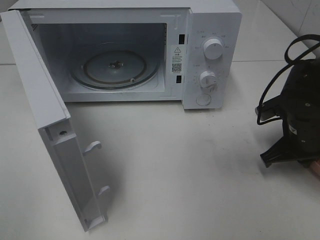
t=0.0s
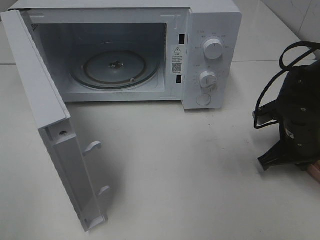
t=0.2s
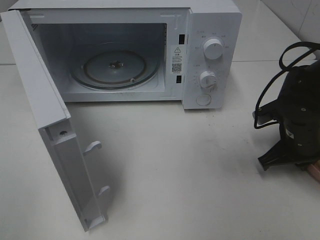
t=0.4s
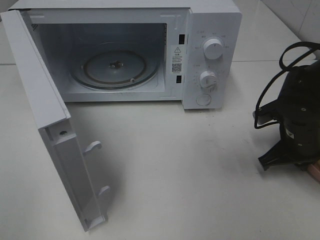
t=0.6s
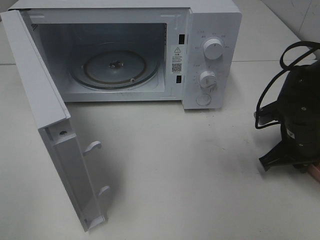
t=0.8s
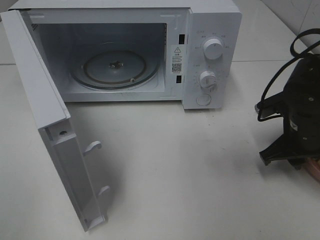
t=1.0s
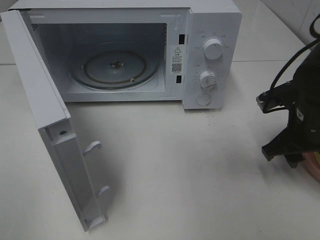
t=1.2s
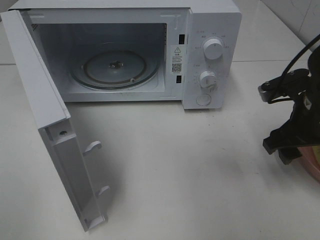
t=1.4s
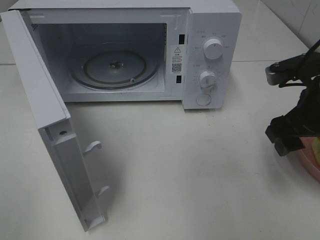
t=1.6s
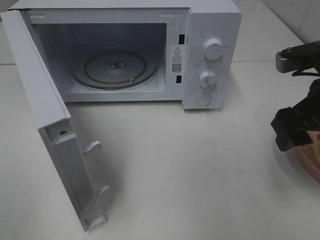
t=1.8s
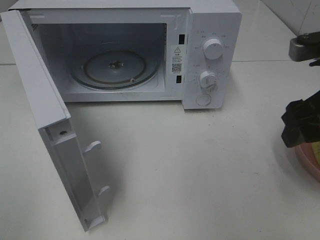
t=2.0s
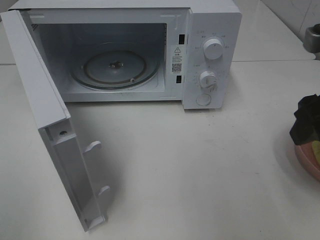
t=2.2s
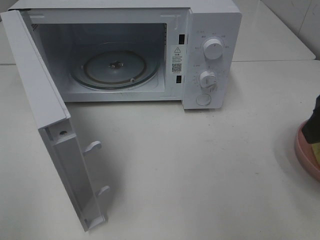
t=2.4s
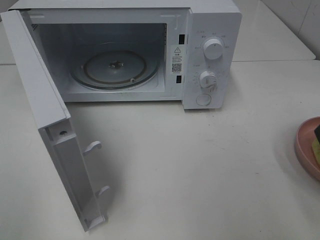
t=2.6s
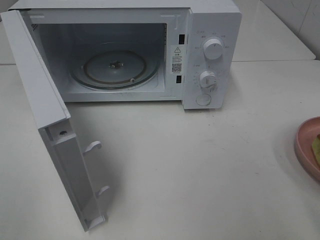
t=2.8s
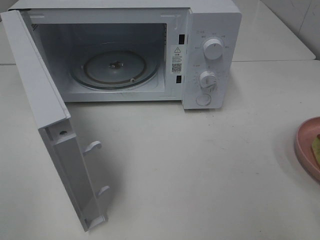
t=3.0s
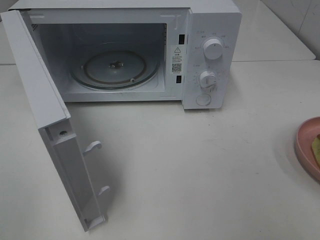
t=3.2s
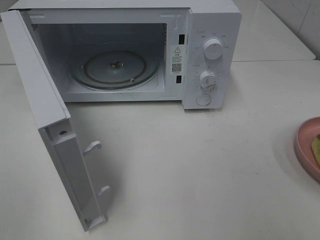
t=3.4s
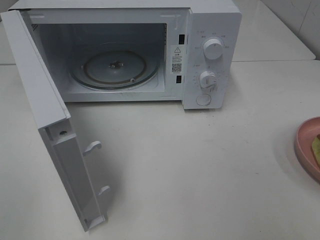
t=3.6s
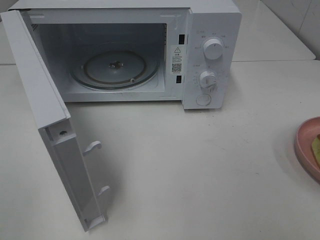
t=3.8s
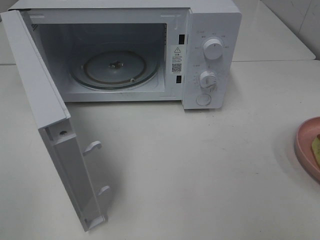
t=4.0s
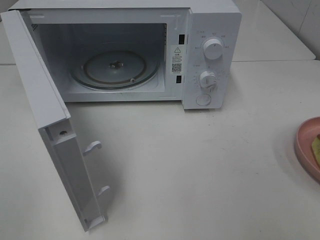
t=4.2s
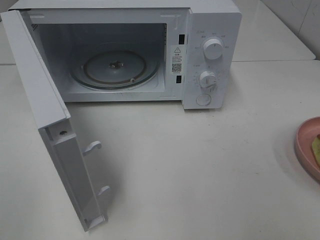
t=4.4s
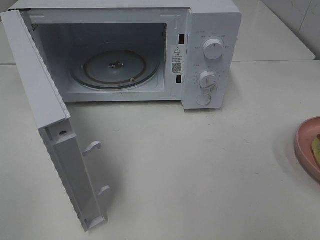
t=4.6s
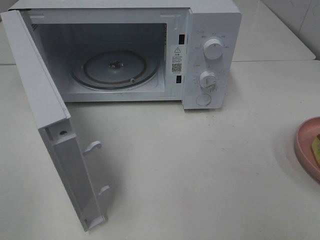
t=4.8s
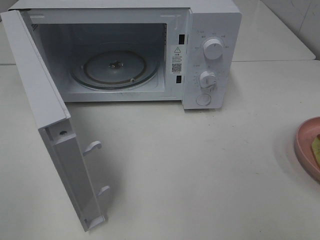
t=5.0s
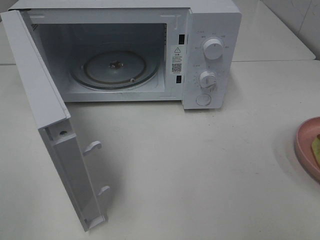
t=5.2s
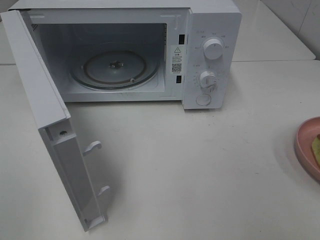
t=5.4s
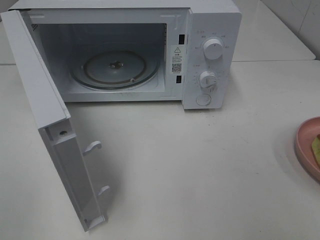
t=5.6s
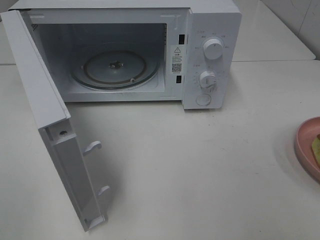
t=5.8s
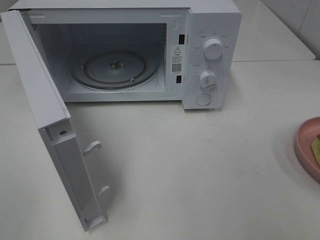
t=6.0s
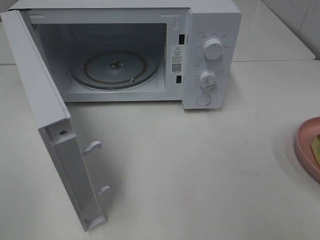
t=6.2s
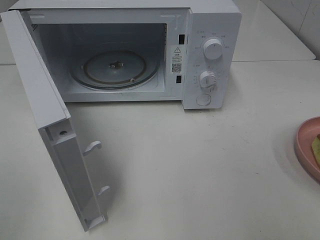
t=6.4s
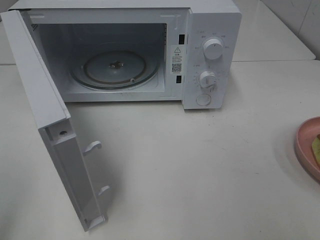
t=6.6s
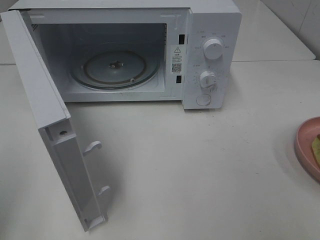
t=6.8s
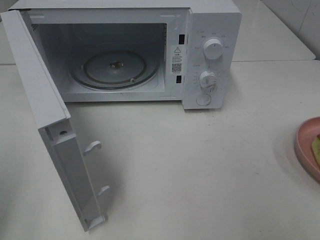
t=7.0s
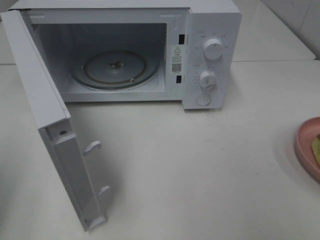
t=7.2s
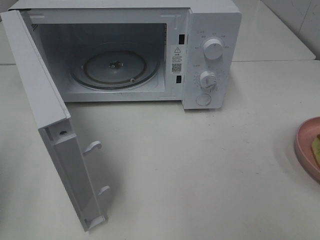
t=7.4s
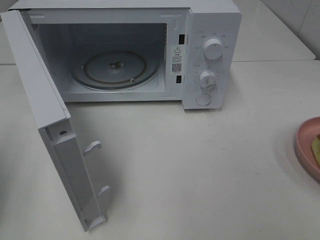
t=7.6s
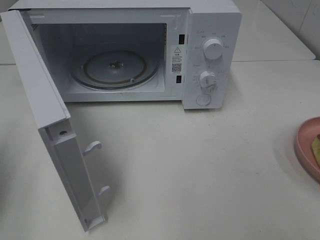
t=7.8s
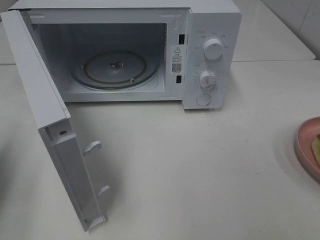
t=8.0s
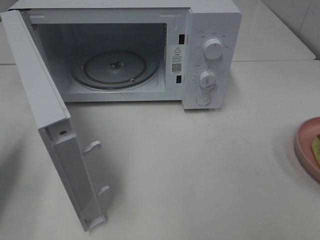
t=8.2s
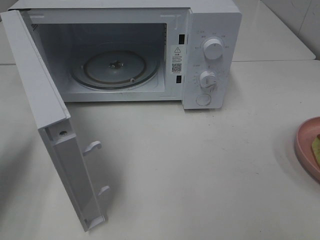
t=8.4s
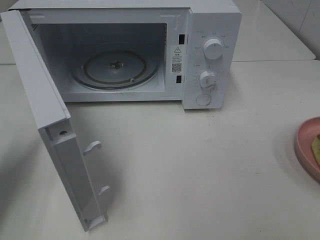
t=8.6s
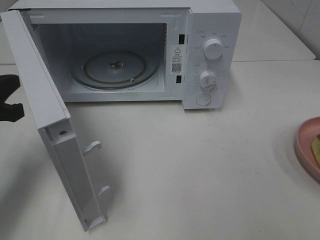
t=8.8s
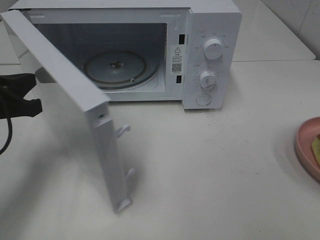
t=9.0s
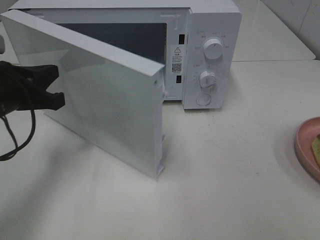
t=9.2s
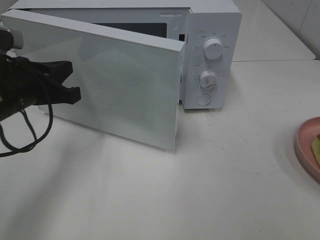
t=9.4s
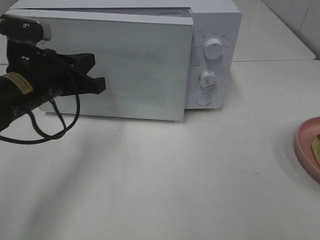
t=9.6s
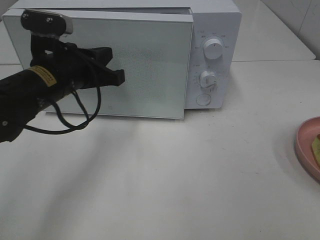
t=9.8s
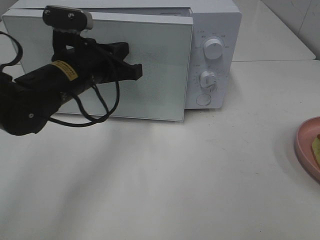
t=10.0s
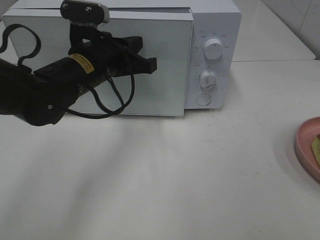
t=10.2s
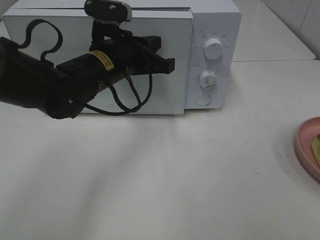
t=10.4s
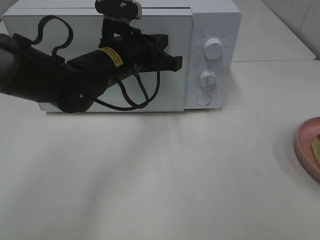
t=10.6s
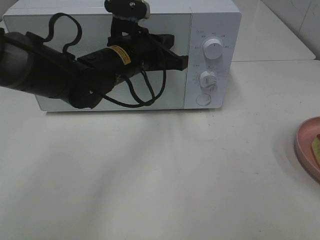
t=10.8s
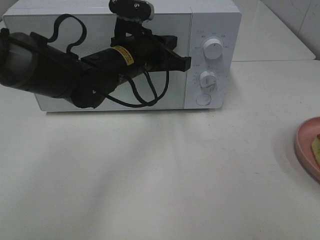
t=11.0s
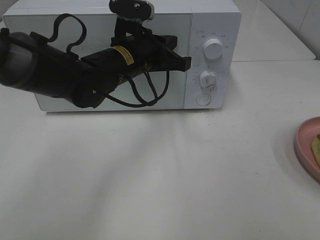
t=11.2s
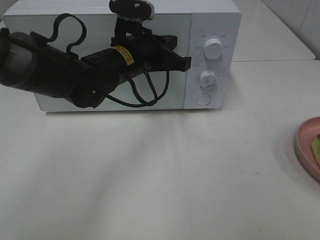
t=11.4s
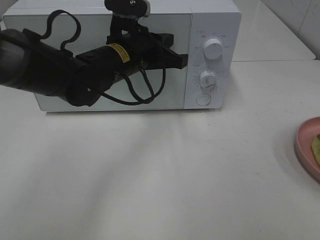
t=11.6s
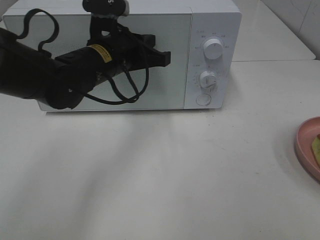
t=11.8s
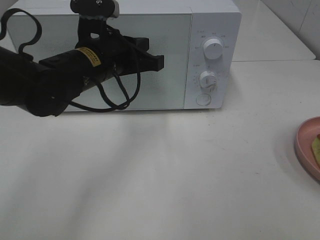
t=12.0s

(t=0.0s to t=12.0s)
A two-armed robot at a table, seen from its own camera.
Task of the whole recording: Heat Sandwich.
Step, t=0.0s - t=2.2s: Right hand: place the plate on the table.
t=0.0s - t=1.6s: The right gripper moves upward, approximately 10 cm, and opens its fingers.
t=1.6s - t=3.0s: The right gripper shifts about 20 cm backward and upward.
t=4.4s - t=6.0s: Both grippers stay about where they are.
t=7.6s - t=9.0s: The left gripper travels forward, to the right and downward by approximately 15 cm.
t=9.0s - t=10.4s: The left gripper travels to the right and forward by roughly 20 cm.
t=10.4s - t=12.0s: The grippers move only a little.

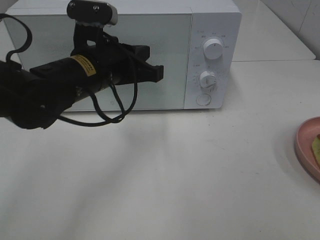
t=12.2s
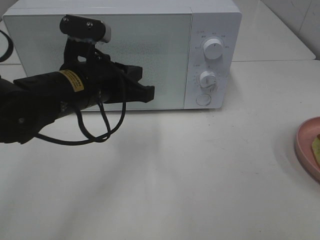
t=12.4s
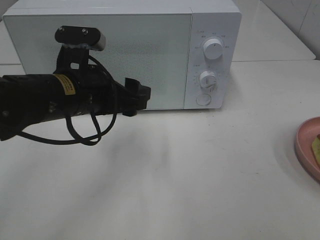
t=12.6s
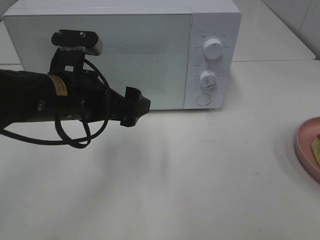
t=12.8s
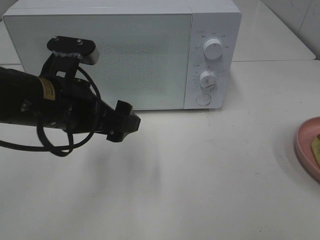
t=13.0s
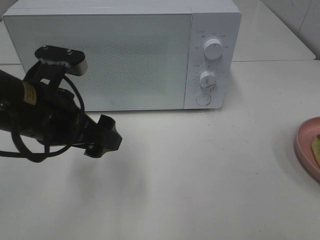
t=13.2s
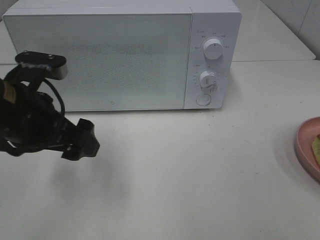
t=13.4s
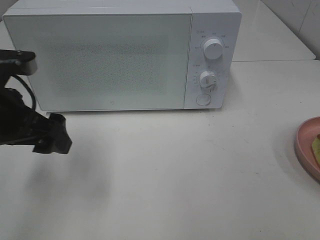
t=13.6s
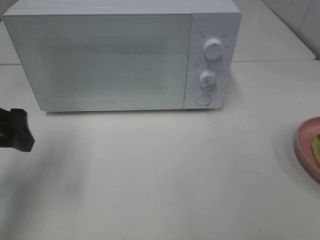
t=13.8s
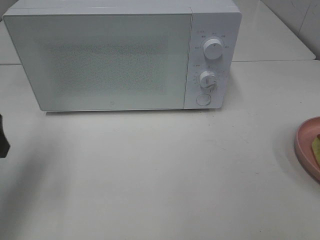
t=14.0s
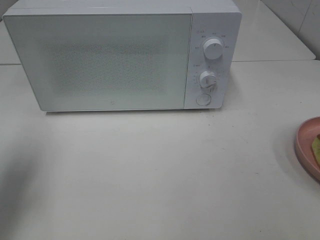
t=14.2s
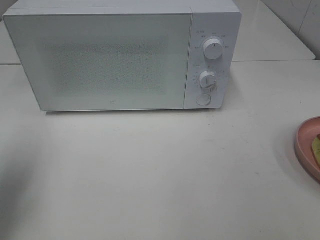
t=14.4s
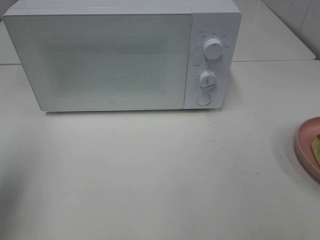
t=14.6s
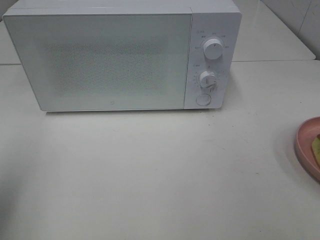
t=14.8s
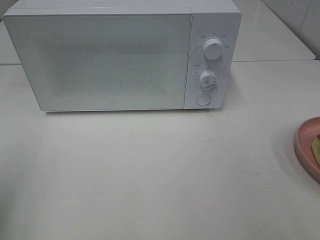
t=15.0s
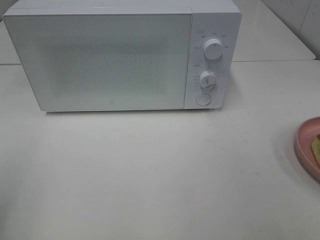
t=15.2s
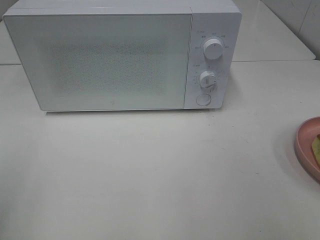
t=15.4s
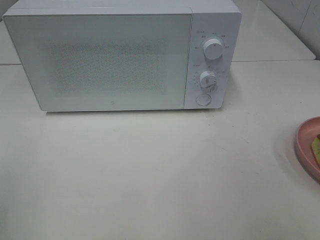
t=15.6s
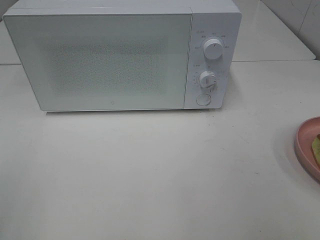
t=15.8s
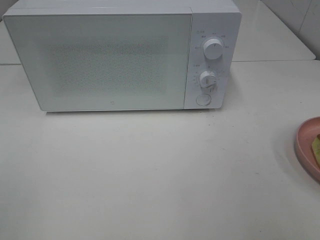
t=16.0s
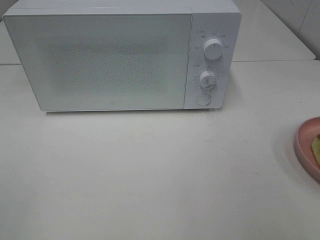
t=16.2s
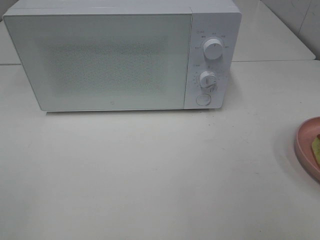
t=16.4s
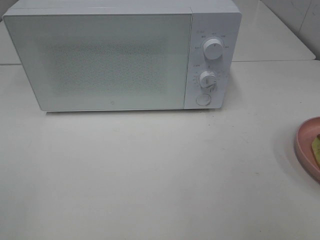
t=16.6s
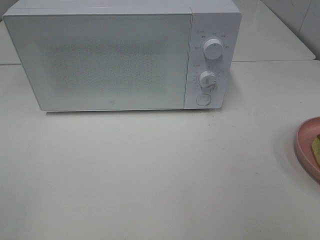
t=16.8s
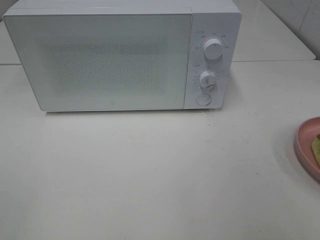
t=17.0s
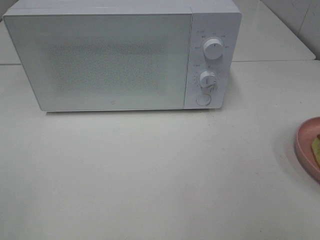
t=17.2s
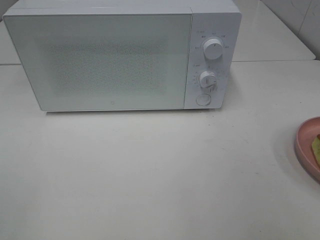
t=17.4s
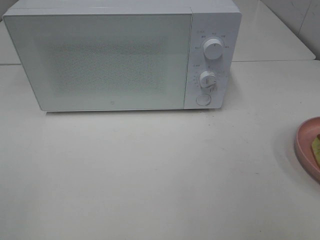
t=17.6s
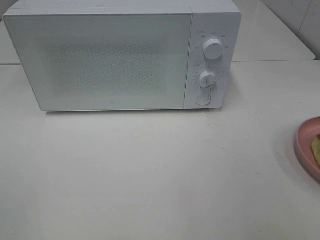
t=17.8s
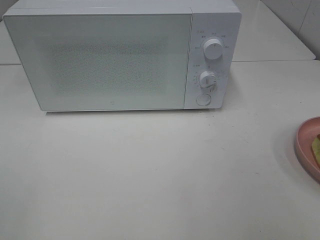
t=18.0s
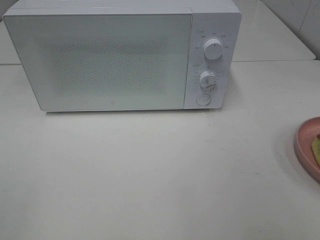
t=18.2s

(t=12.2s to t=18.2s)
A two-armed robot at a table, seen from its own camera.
Task of the whole recording: Heat Sandwich.
t=12.2s - t=13.8s: The left gripper heads to the left and backward, covering roughly 15 cm, and opens.
t=13.8s - t=15.2s: The left gripper is displaced backward and to the left by about 15 cm.
t=16.6s - t=18.2s: Both grippers stay about where they are.

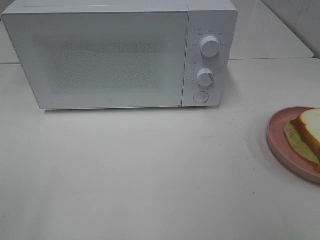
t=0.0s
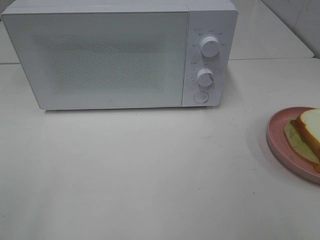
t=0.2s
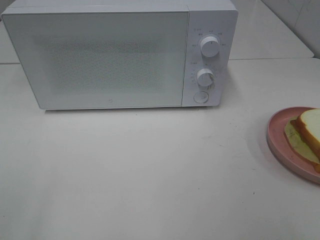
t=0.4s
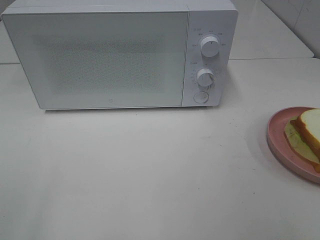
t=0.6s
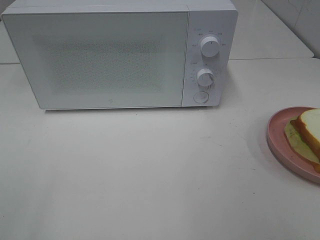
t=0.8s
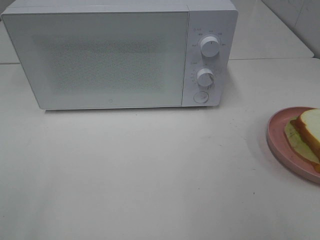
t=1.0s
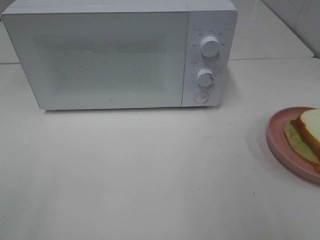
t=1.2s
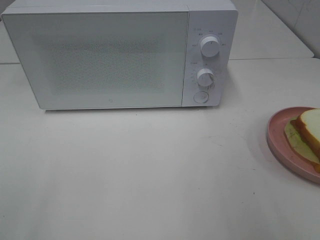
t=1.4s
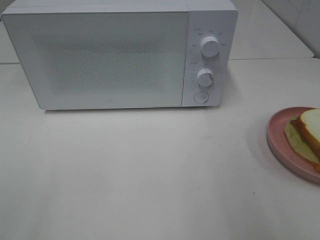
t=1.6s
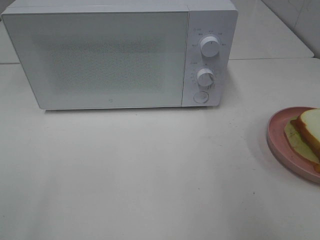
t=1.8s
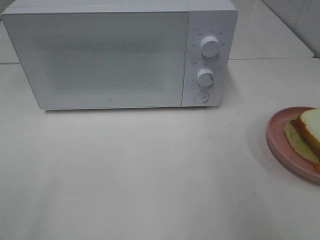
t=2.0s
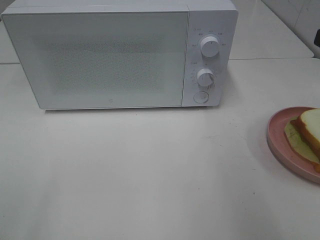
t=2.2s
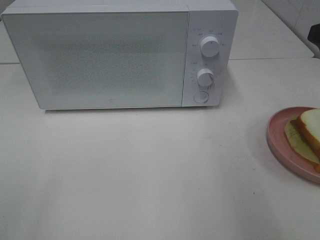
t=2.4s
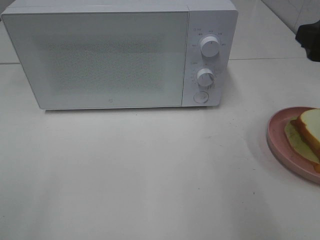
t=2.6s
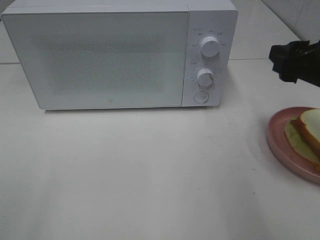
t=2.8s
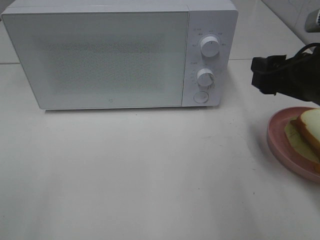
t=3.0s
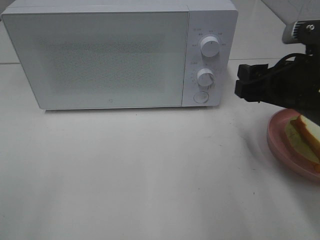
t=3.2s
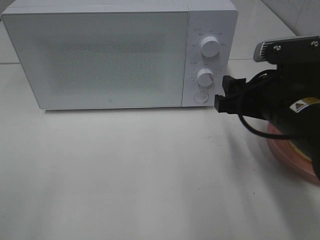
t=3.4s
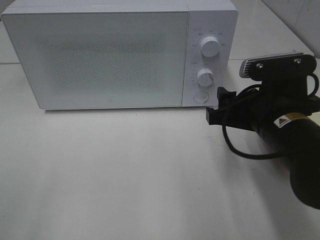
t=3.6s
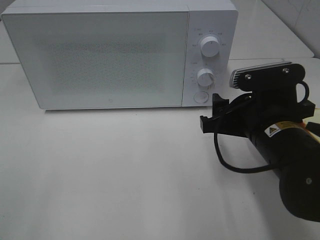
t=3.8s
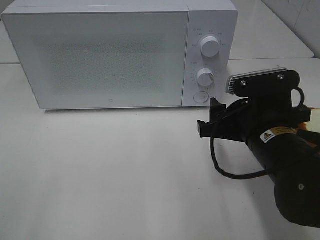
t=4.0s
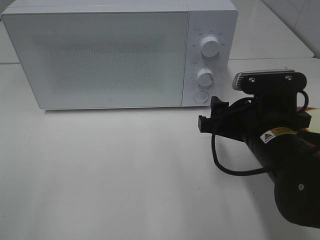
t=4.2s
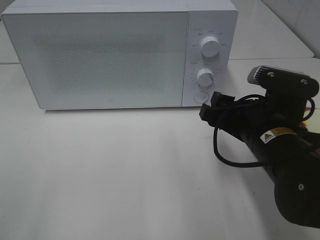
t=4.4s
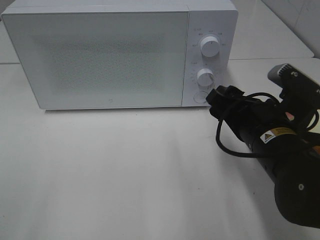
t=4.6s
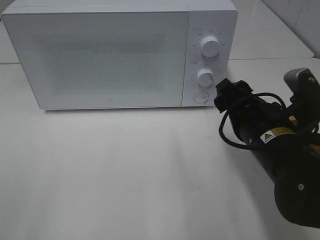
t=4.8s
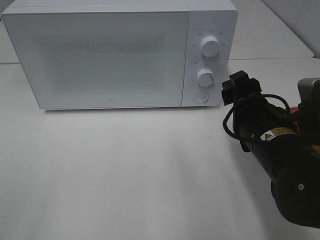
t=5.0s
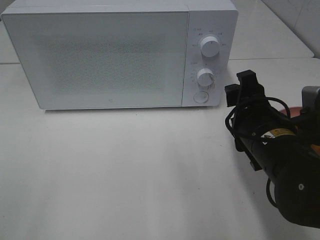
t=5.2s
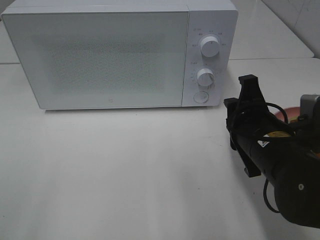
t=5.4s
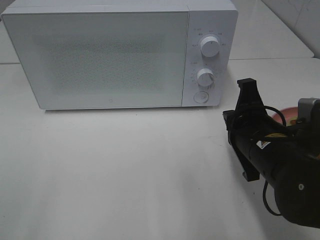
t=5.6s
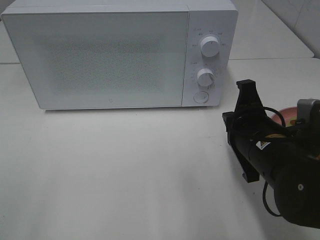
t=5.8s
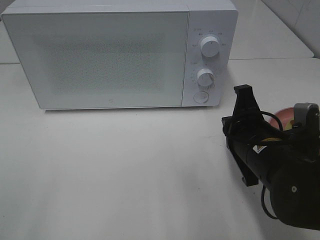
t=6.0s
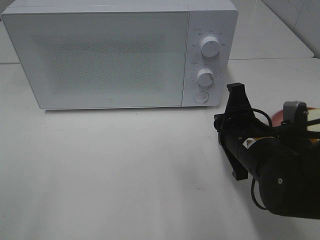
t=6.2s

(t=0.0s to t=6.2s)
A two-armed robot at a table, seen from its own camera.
Task of the whole recording: Heat Sandwich.
t=1.6s - t=3.2s: The right gripper goes approximately 15 cm downward, forward and to the left.
t=3.2s - t=4.6s: The right gripper goes approximately 10 cm downward and to the left.
t=4.6s - t=6.2s: The right gripper closes up.
